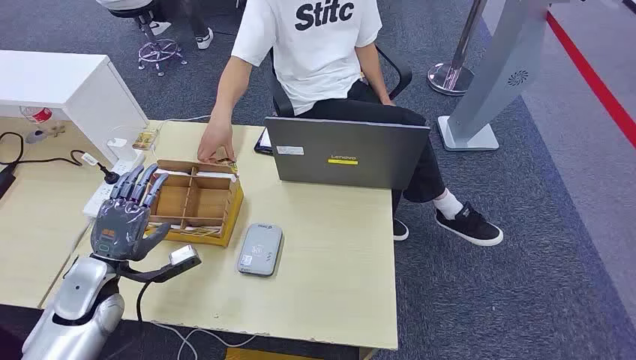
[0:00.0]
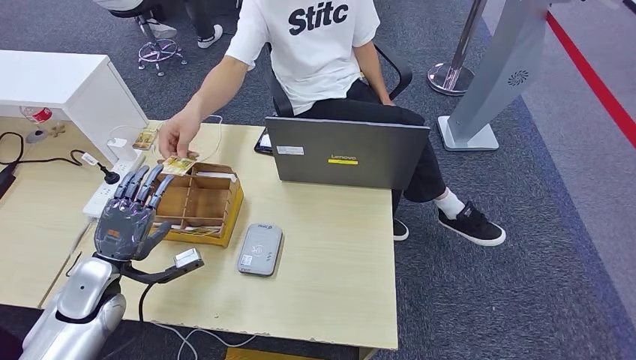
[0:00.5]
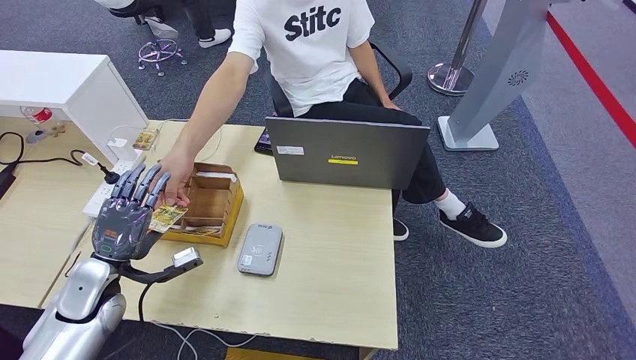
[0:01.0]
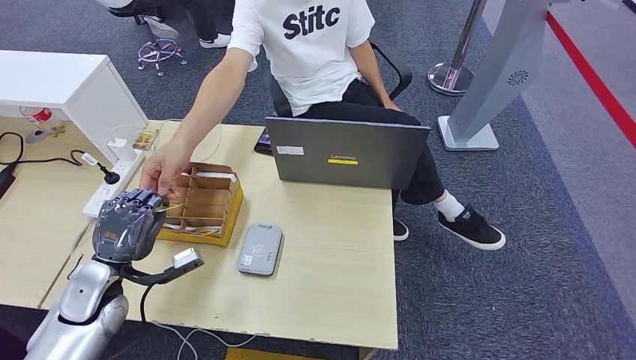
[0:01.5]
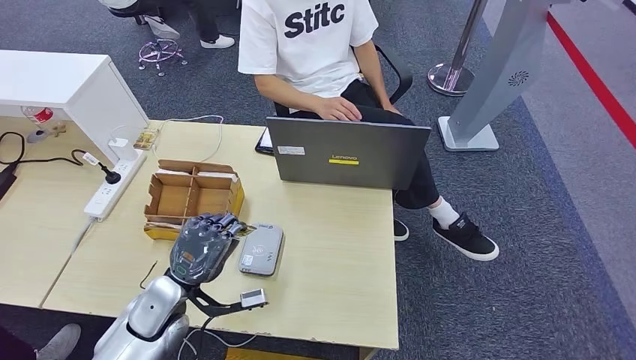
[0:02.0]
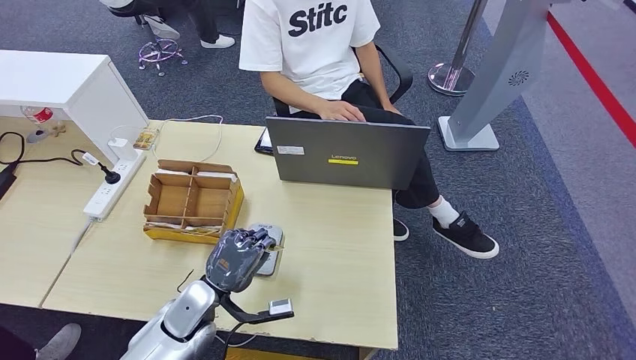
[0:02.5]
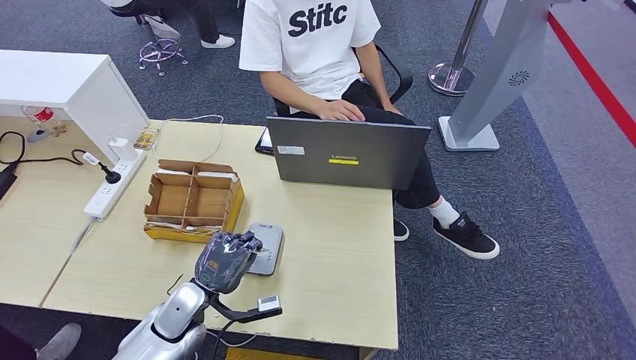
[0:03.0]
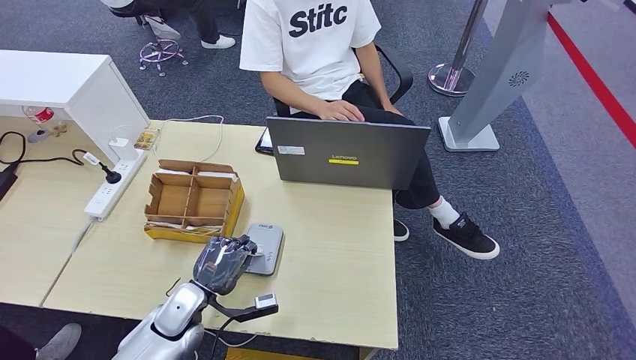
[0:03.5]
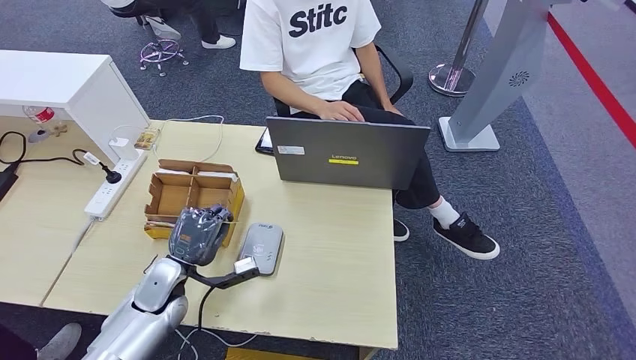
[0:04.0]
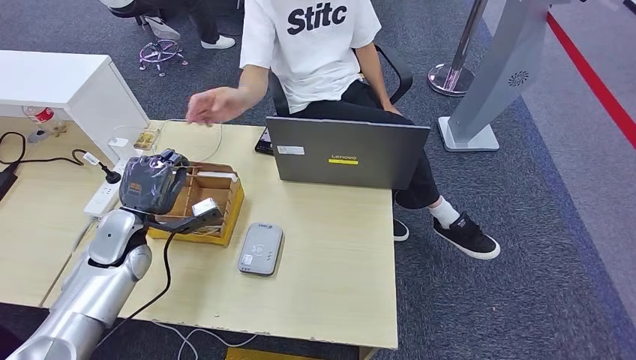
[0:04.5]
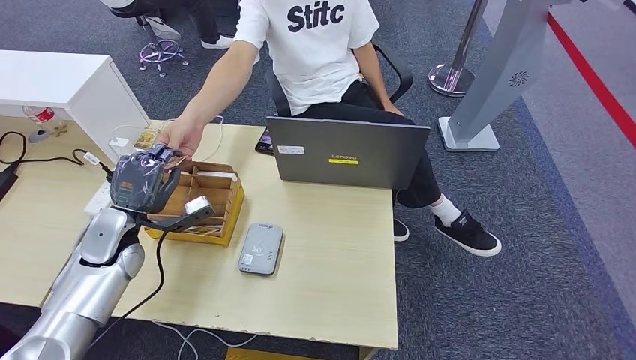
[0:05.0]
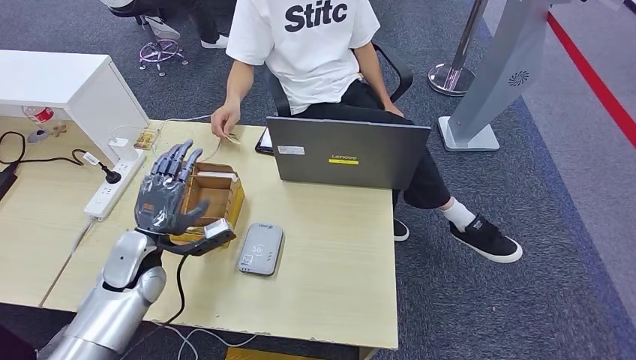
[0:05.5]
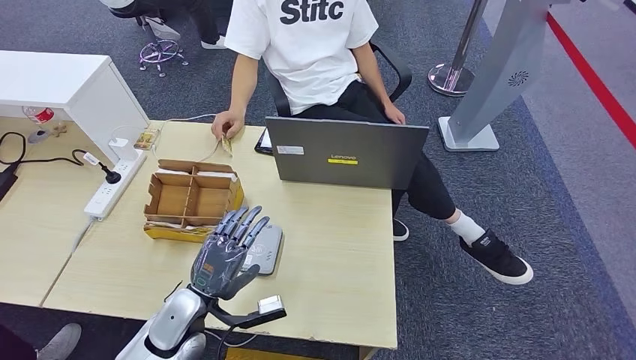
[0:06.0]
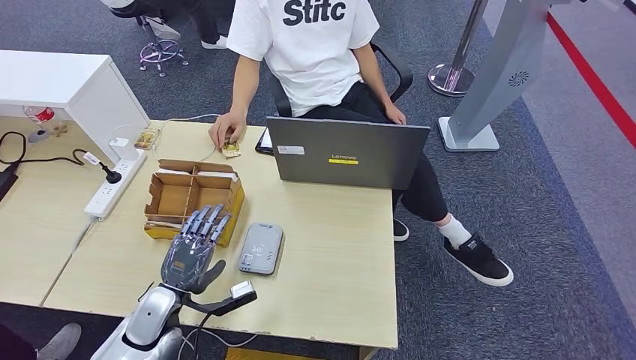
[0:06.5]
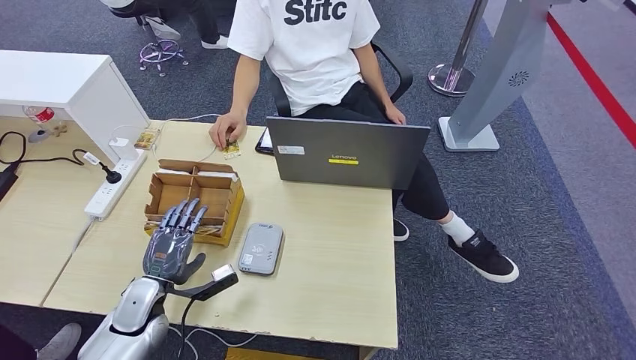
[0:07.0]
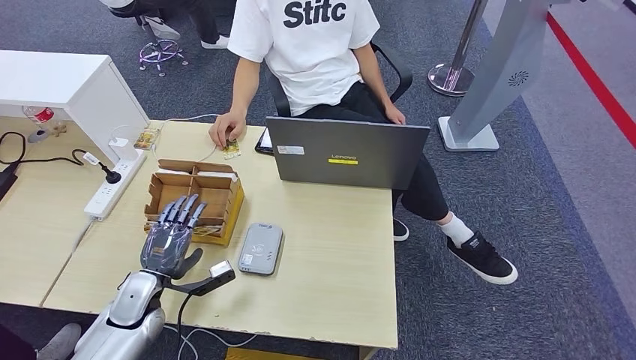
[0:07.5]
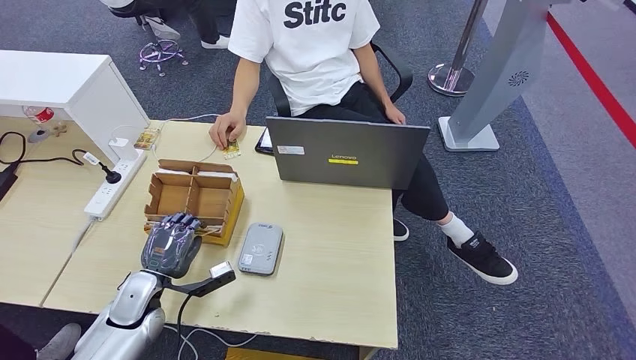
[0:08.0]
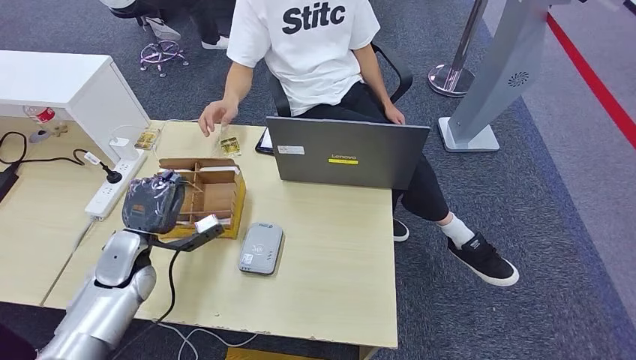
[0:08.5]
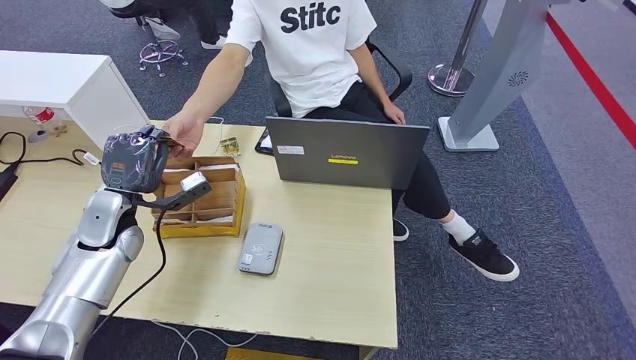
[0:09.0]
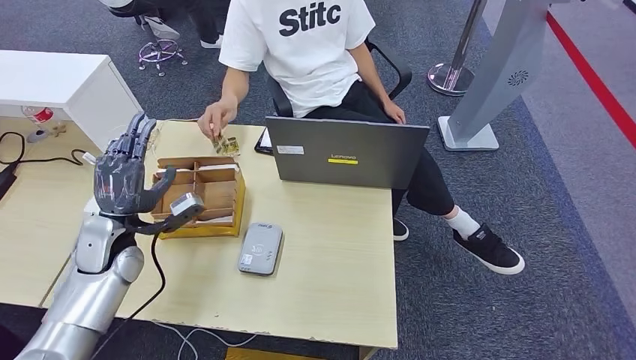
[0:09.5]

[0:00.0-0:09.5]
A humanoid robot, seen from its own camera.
Step, 0:00.0 to 0:01.5: Take the ID card from the person's hand.
Step, 0:02.0 to 0:03.5: Place the ID card on the card reader.
Step, 0:04.0 to 0:06.0: Hand the ID card to the person.
Step, 0:08.0 to 0:08.5: Pick up the room key from the key card box.
Step, 0:09.0 to 0:09.5: Hand the room key to the person.
0:02.0 to 0:04.0: The left hand changes place by roughly 5 cm.
0:04.0 to 0:05.5: The left hand travels upward by about 5 cm.
0:05.5 to 0:07.5: The left hand heads downward and backward, covering about 10 cm, and goes to the right and returns, approximately 10 cm each way.
0:07.5 to 0:09.5: The left hand moves upward and forward, roughly 15 cm.
